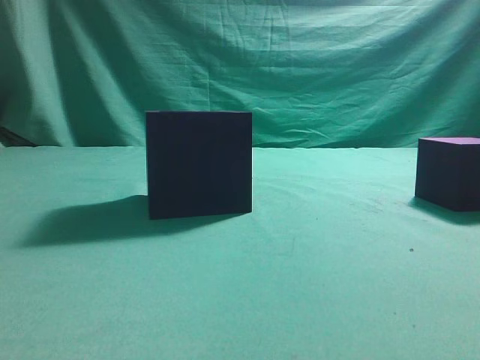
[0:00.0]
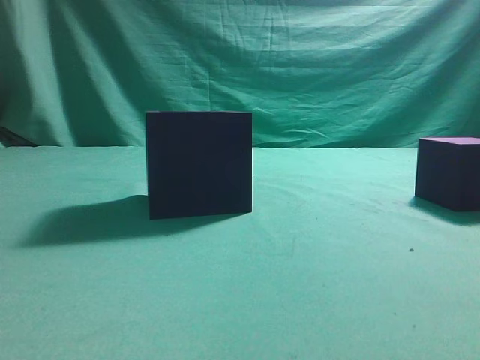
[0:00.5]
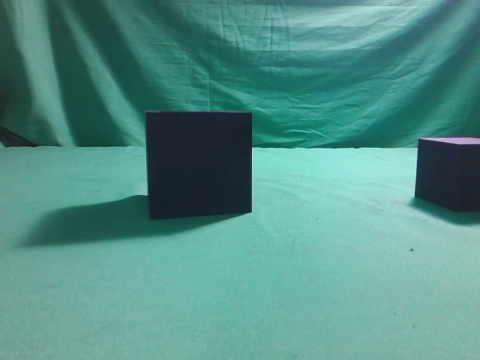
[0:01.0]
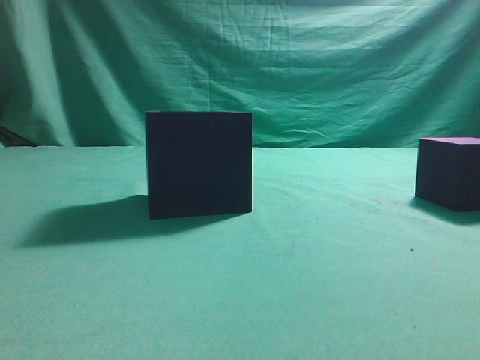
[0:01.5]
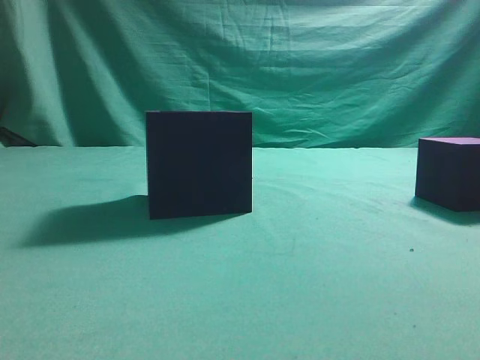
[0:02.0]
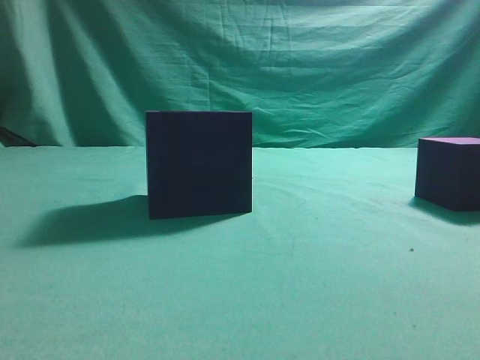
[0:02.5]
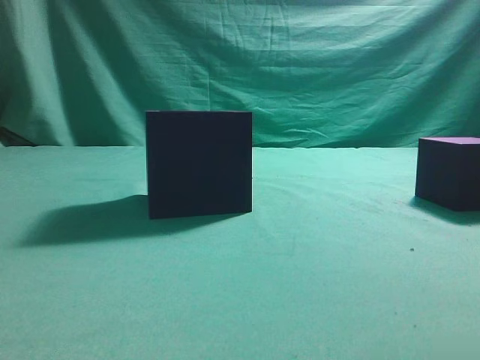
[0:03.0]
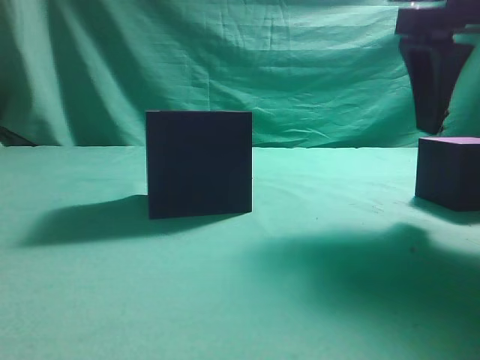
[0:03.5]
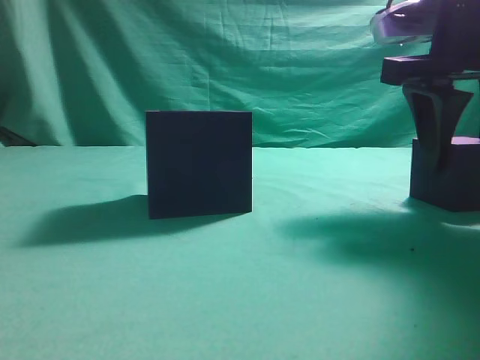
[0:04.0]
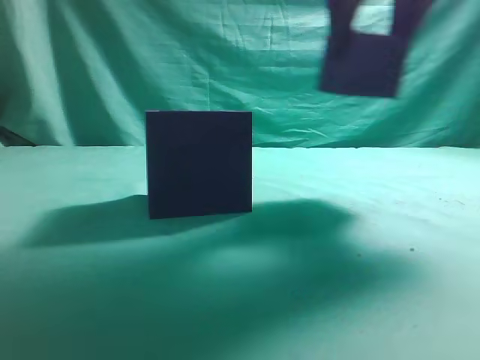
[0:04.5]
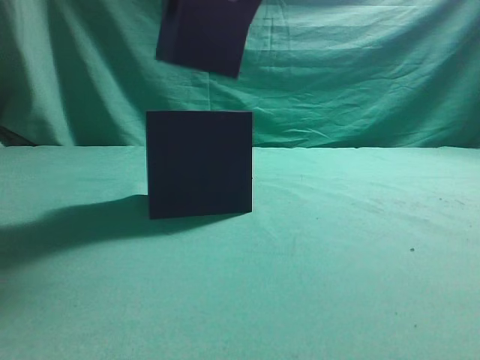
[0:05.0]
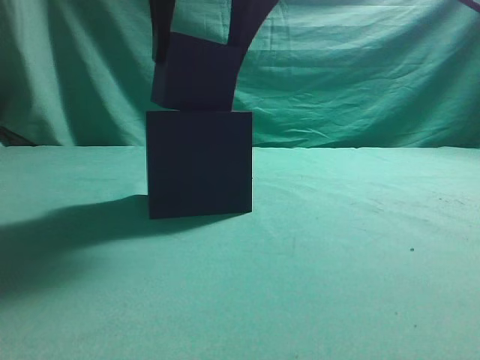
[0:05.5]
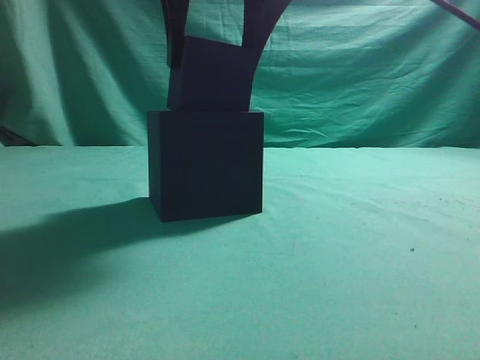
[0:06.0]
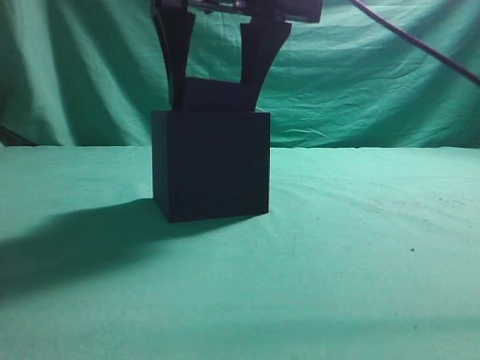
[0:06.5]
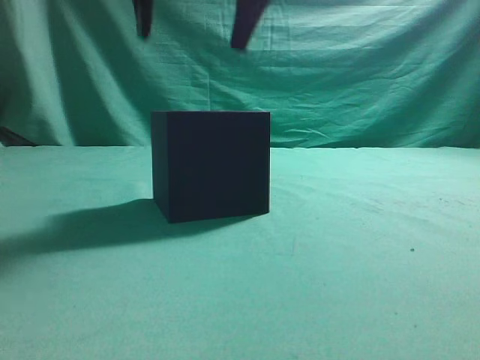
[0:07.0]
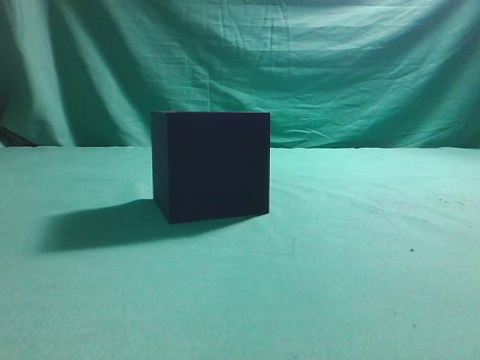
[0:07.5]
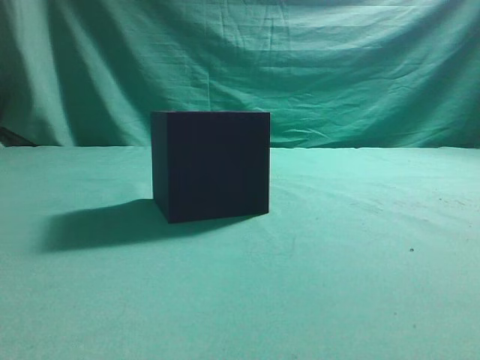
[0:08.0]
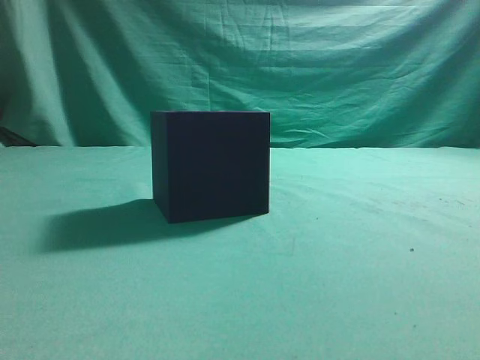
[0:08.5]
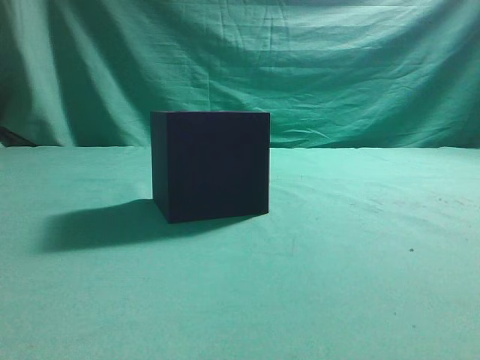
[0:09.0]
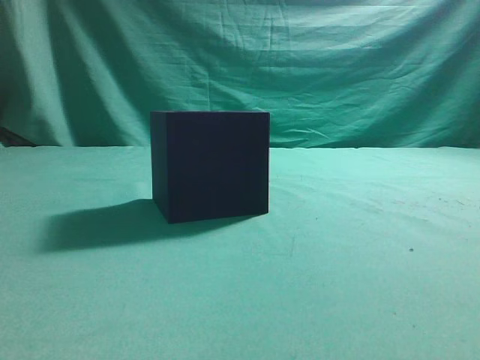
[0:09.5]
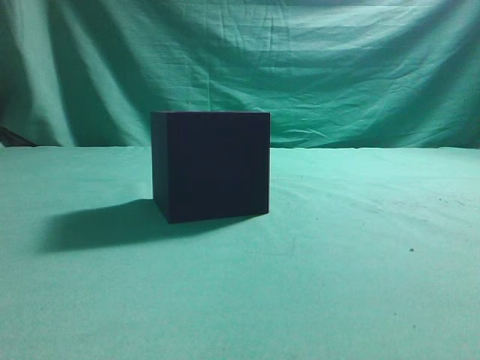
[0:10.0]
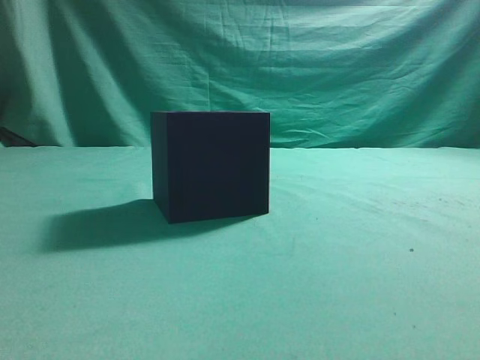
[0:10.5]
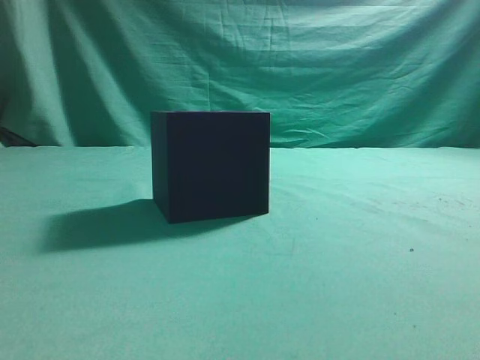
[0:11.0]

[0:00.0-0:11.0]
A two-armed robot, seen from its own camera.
Task of the whole recording: pick up the cube block and place it into the cube groove.
Step, 0:00.0 to 0:04.0: Grasp the cube.
Step, 0:04.5 to 0:06.5: Place cube into the cube-shaped recess.
0:02.0 to 0:03.5: The right gripper travels forward and to the left by approximately 25 cm, and opens up.
0:03.5 to 0:05.5: The right gripper is displaced to the left by approximately 20 cm.
0:05.5 to 0:07.5: The right gripper goes roughly 15 cm upward, and closes up.
